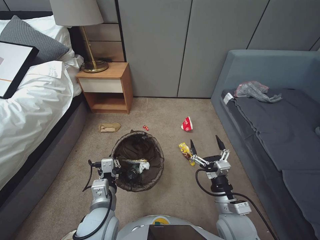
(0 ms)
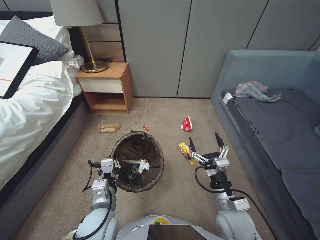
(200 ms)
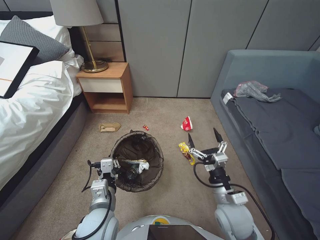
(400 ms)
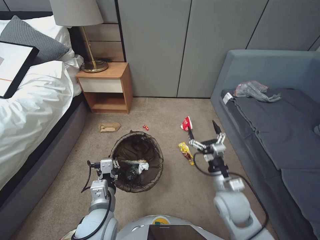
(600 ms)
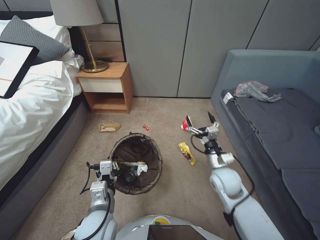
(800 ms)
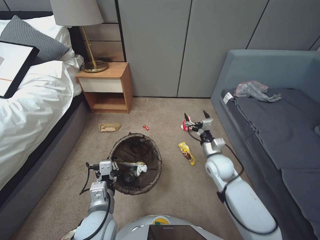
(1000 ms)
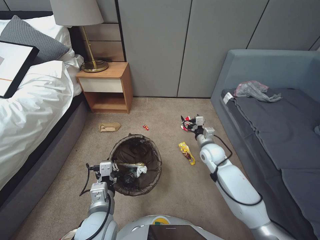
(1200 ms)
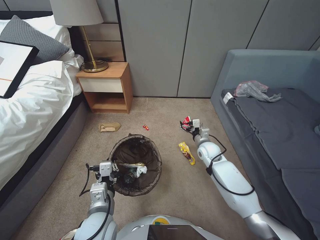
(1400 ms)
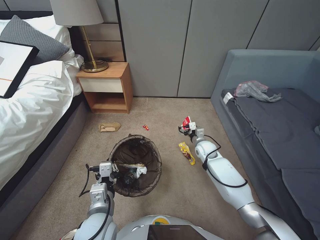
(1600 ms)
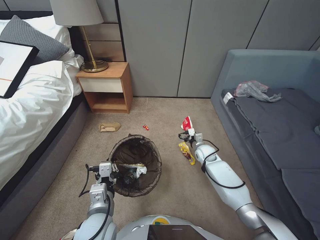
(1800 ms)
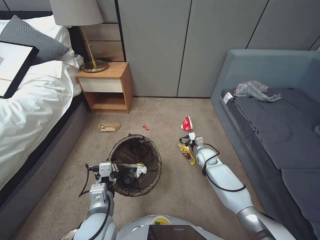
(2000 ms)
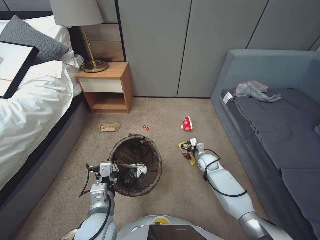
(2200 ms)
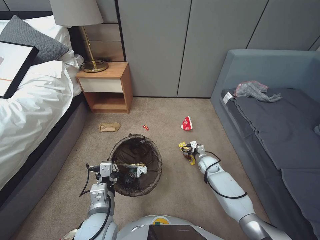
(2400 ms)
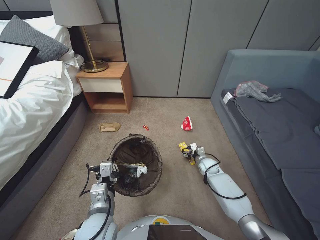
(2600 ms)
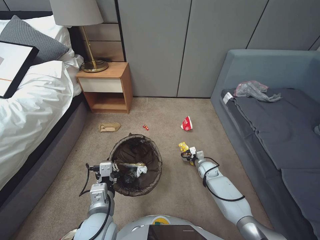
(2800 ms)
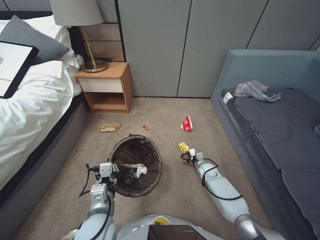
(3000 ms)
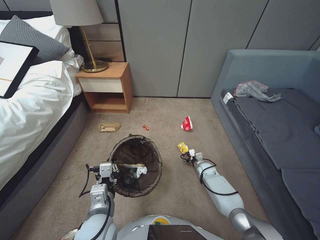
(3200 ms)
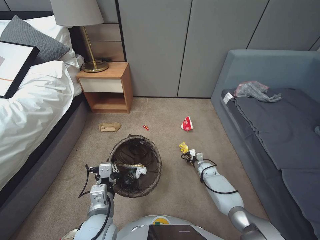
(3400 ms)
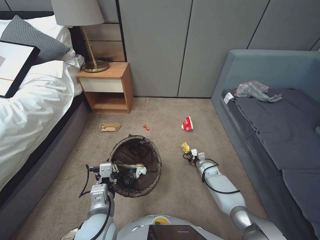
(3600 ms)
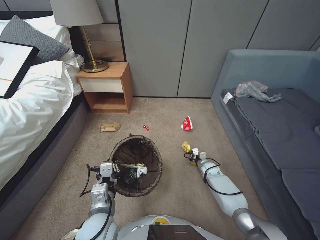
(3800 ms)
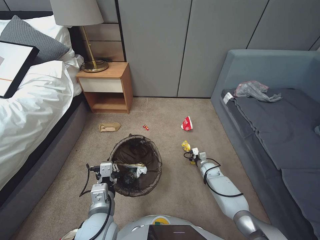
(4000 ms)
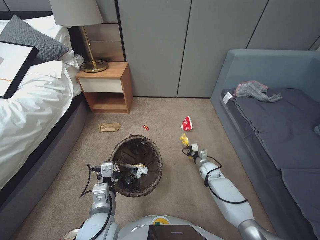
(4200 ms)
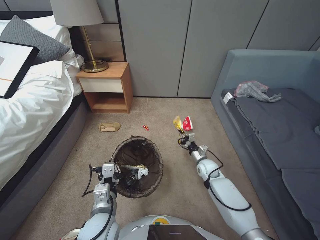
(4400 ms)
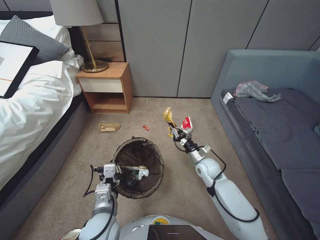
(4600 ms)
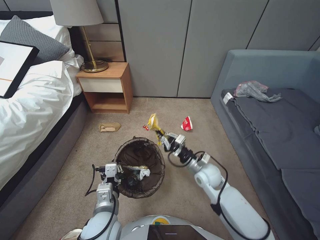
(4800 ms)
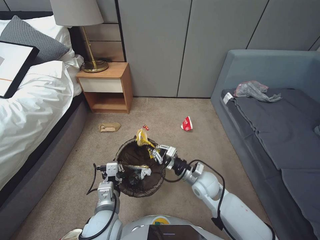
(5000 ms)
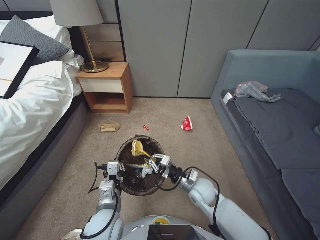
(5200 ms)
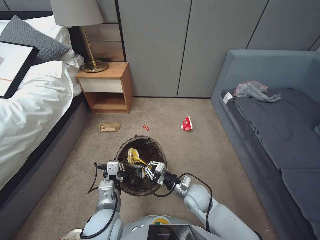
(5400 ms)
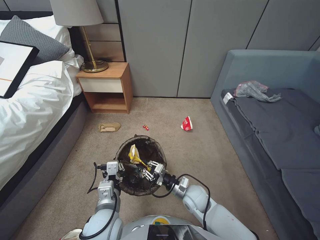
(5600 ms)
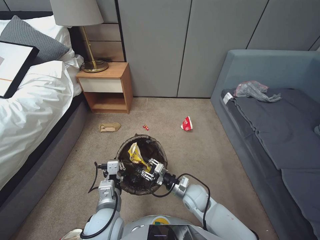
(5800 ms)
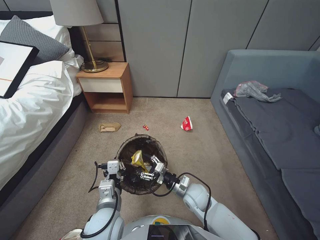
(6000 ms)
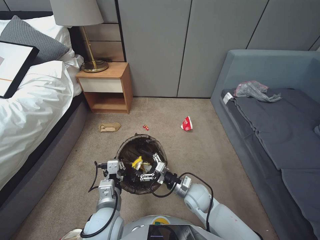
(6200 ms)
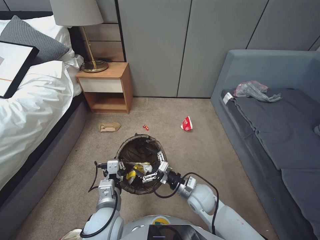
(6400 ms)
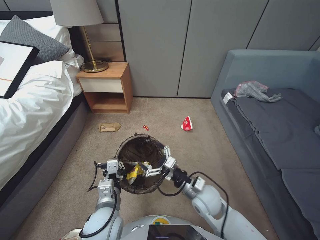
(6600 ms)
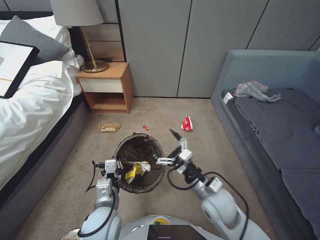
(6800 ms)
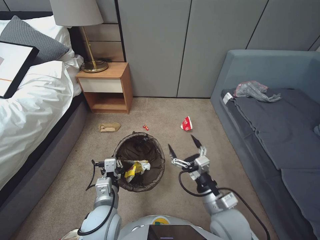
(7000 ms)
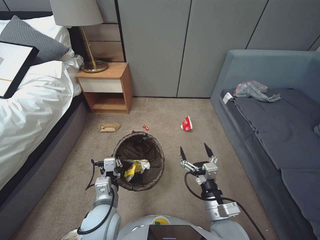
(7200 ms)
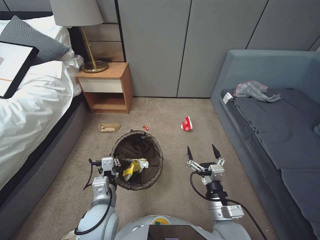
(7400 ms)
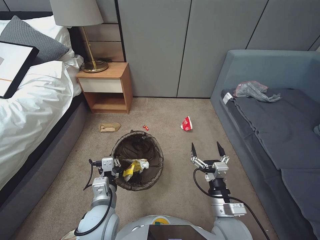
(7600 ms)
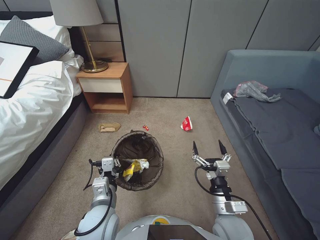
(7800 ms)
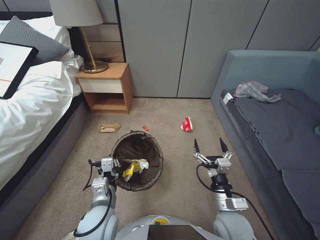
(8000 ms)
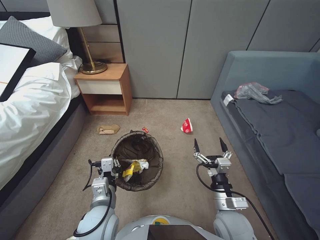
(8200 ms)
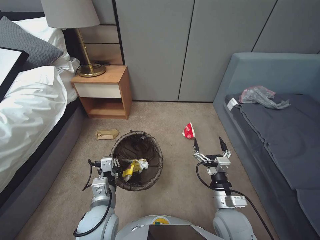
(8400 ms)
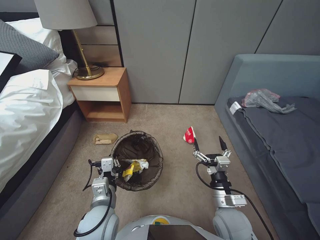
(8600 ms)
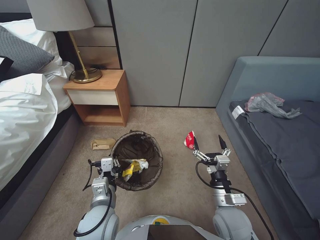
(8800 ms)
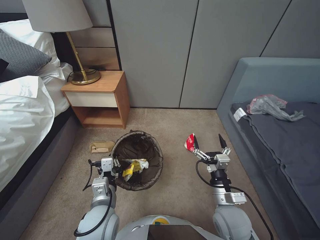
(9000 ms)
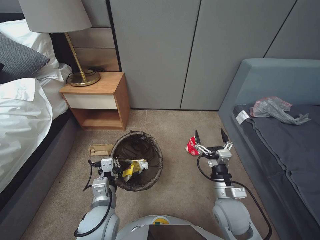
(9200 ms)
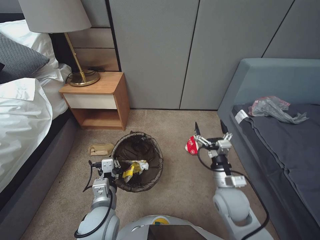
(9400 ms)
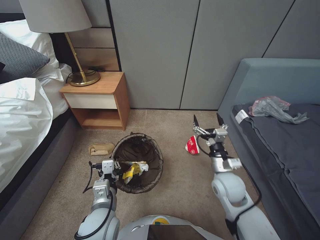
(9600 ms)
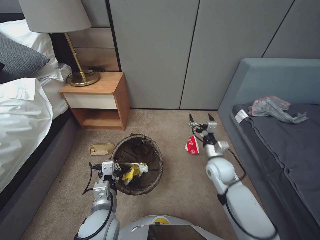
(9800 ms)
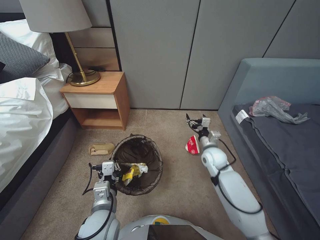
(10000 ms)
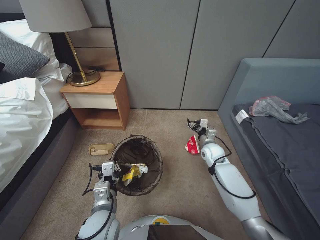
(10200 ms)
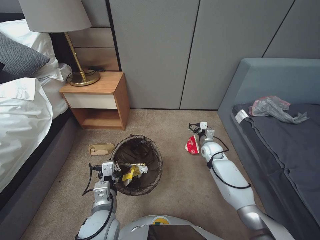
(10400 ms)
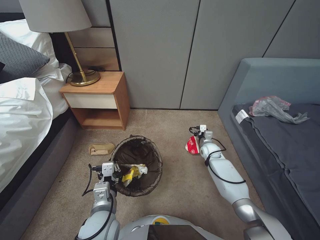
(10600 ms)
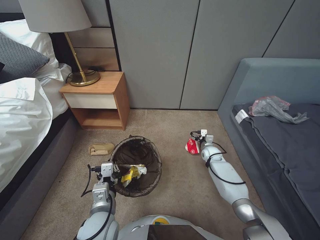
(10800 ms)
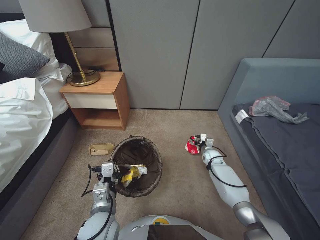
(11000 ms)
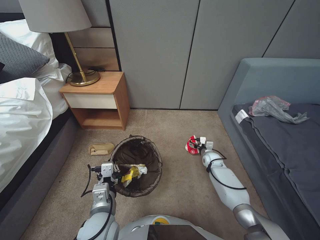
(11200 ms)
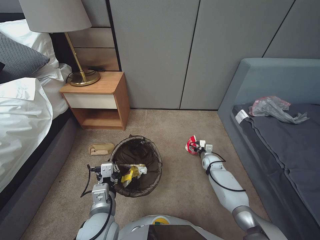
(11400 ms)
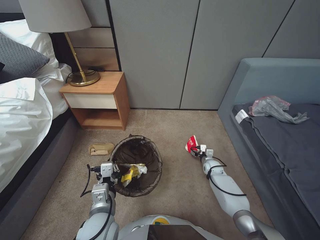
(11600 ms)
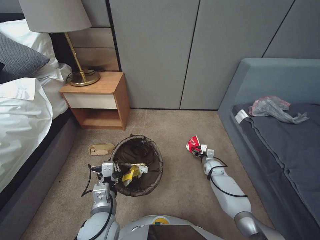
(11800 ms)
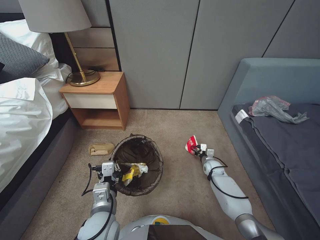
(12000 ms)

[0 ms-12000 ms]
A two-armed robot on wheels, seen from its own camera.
Task of the whole recording: Pick up the trash bin, then pick up the garbage from the floor and place it into the trash bin.
0 ms to 1600 ms: The right gripper heads forward, covering roughly 30 cm.
1600 ms to 3000 ms: The right gripper goes approximately 15 cm downward.
3000 ms to 4400 ms: The right gripper closes.
4400 ms to 6000 ms: The right gripper moves backward, to the left and upward, roughly 20 cm, and opens up.
6000 ms to 7600 ms: The right gripper shifts about 15 cm backward, upward and to the right, and opens up.
9000 ms to 10400 ms: The right gripper moves forward, about 25 cm.
10400 ms to 12000 ms: The right gripper heads downward, covering roughly 15 cm, and closes its fingers.

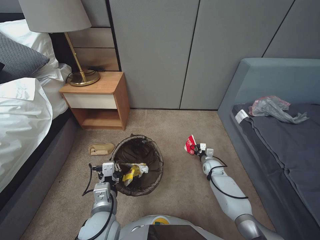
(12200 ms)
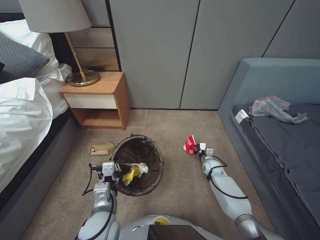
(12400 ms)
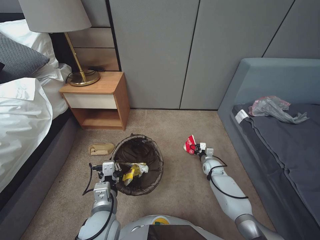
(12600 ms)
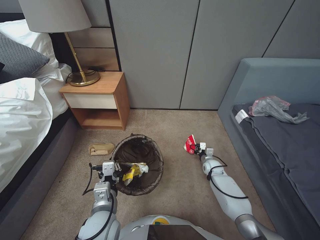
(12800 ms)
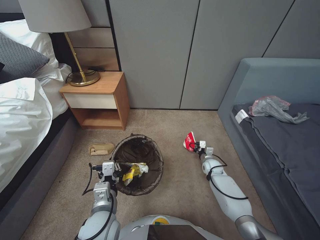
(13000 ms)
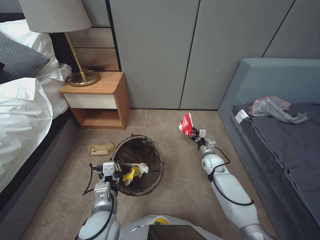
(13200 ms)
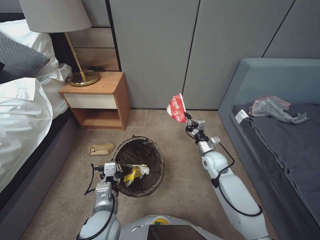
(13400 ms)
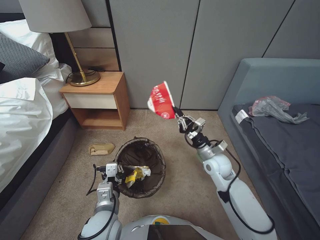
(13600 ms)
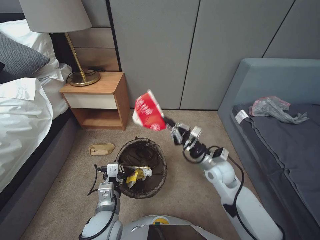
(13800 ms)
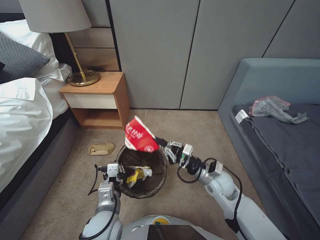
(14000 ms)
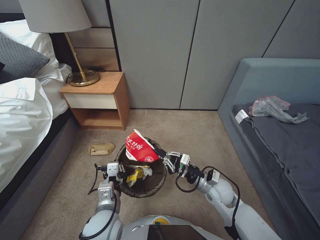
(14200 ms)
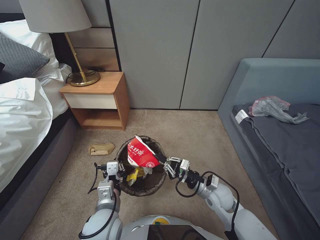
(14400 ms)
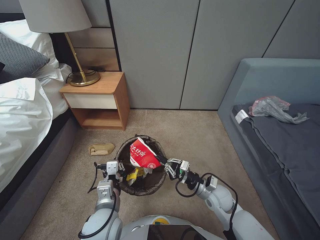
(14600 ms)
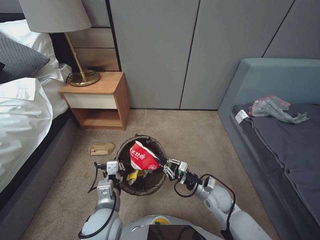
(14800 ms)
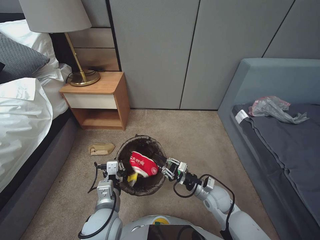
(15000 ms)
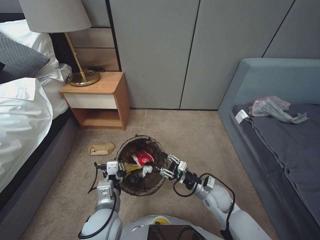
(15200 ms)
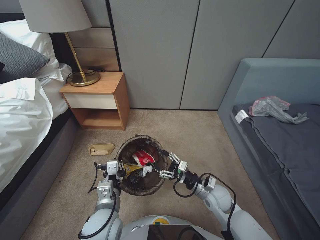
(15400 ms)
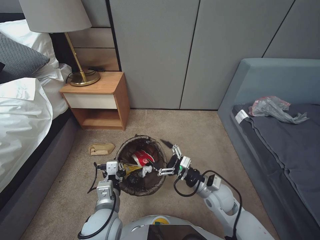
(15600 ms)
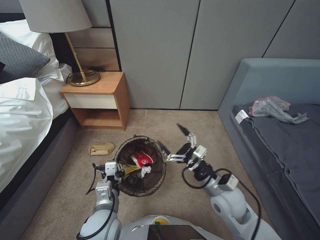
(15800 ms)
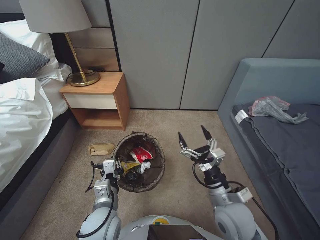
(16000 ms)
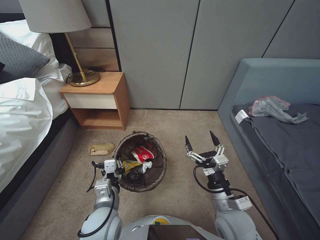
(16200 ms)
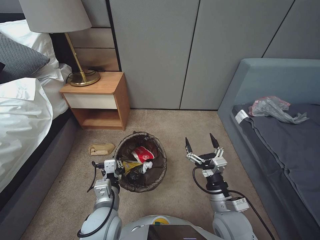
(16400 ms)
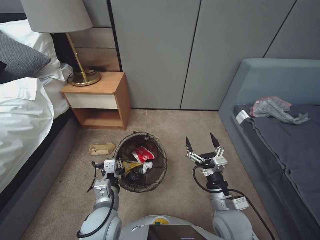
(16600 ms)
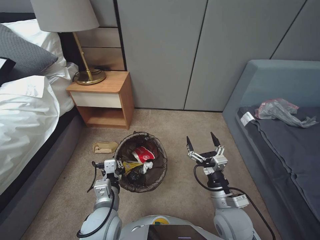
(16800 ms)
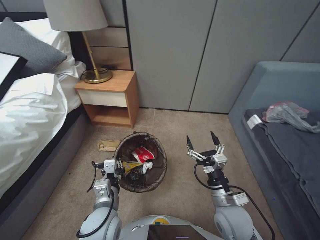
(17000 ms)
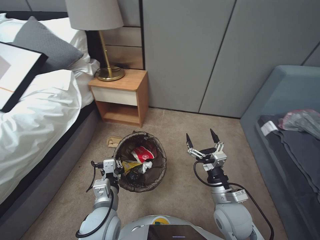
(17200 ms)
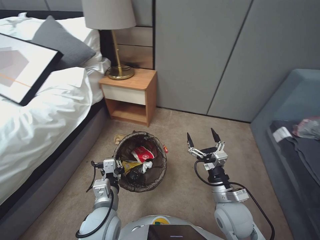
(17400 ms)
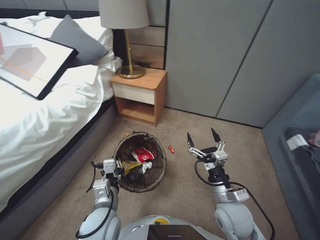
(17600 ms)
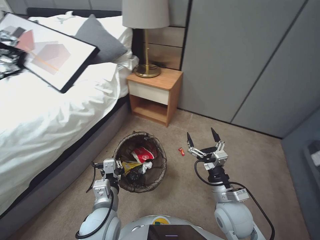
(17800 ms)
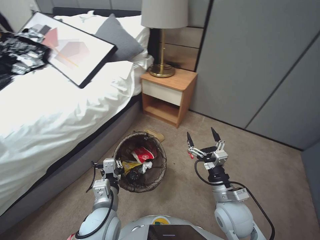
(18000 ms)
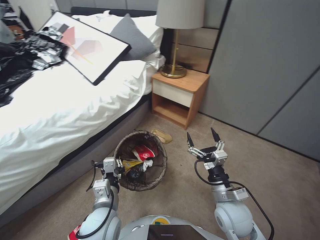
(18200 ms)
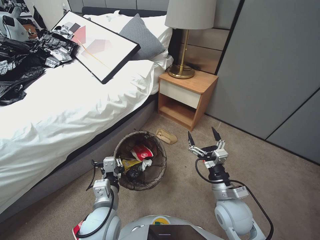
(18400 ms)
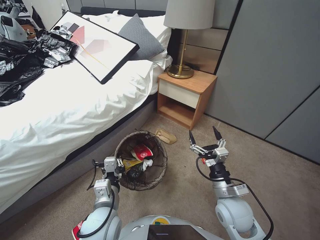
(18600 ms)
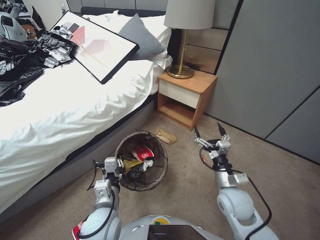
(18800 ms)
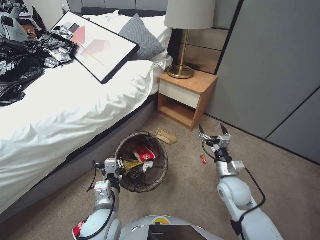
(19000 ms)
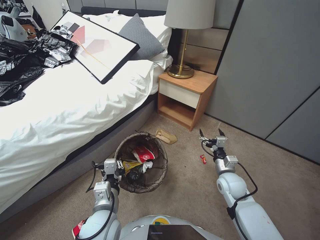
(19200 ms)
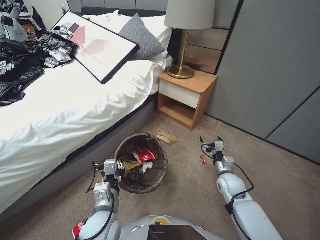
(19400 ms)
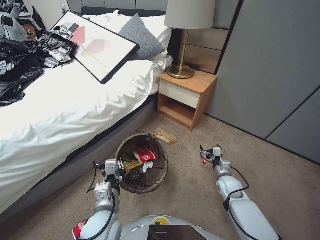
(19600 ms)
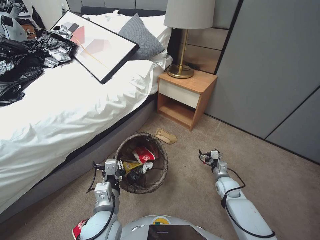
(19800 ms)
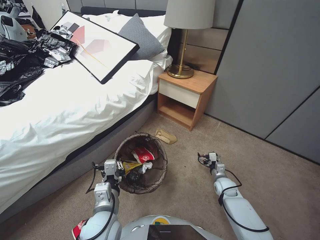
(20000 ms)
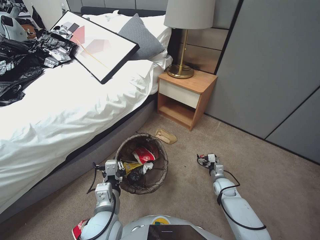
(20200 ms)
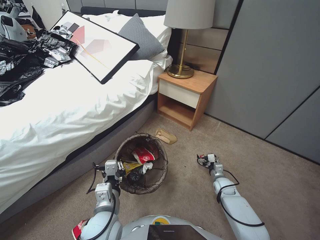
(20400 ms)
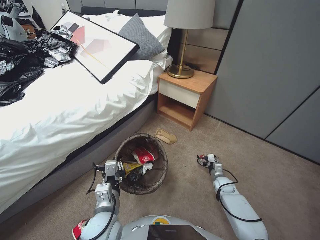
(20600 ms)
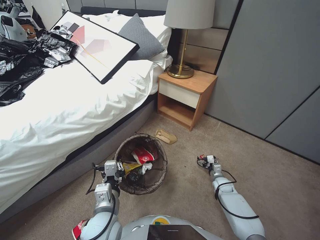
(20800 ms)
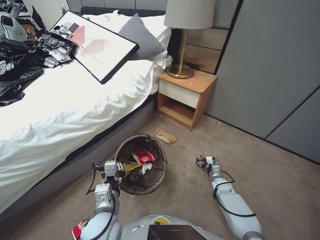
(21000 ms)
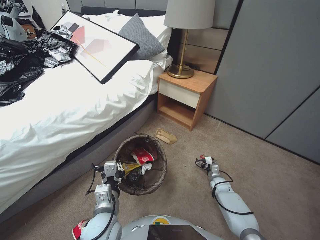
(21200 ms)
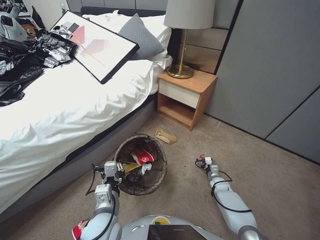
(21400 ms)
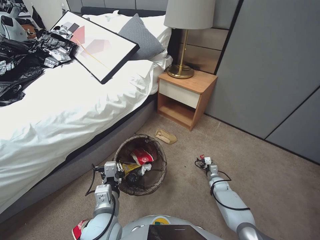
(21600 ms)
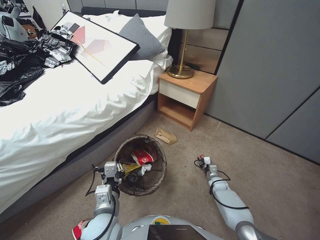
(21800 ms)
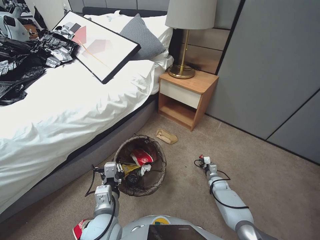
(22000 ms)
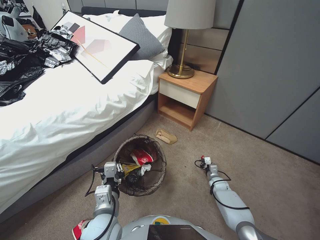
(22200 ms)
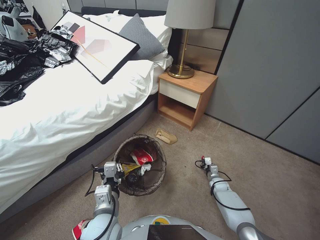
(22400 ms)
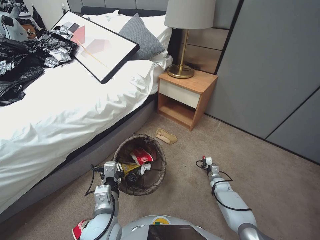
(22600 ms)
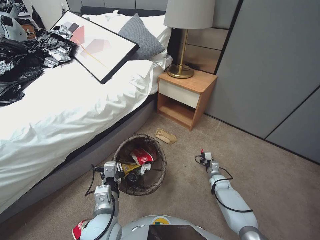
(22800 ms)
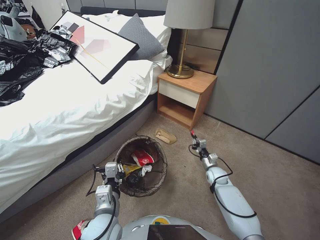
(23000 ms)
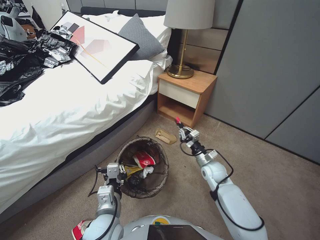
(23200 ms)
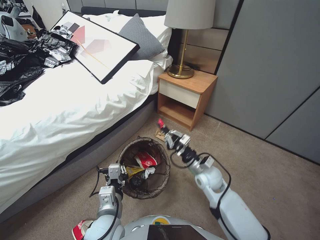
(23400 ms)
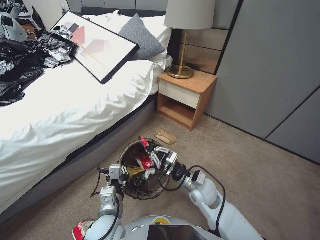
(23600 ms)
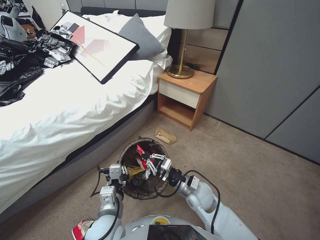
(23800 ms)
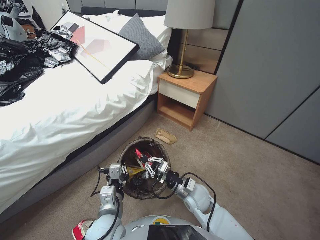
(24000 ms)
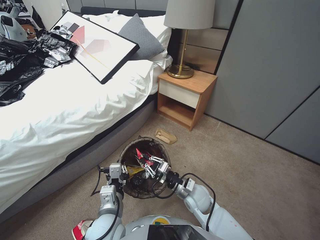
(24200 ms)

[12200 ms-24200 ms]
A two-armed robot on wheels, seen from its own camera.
Task of the whole recording: Pick up the trash bin, then pick up the garbage from the floor and place it into the trash bin.
12200 ms to 13800 ms: The right gripper shifts approximately 20 cm upward.
13800 ms to 15200 ms: The right gripper travels downward and backward by some 15 cm, and opens.
15200 ms to 16600 ms: The right gripper goes approximately 15 cm backward and upward, and opens up.
18200 ms to 19800 ms: The right gripper shifts some 25 cm downward, forward and to the right.
19800 ms to 21200 ms: The right gripper moves downward, some 10 cm.
21200 ms to 22600 ms: The right gripper closes its fingers.
22600 ms to 24200 ms: The right gripper heads to the left, upward and backward, covering some 30 cm.
